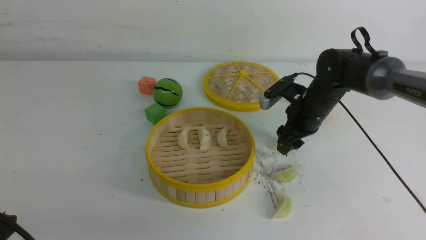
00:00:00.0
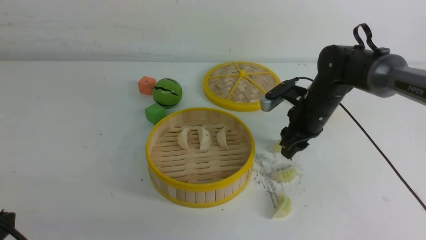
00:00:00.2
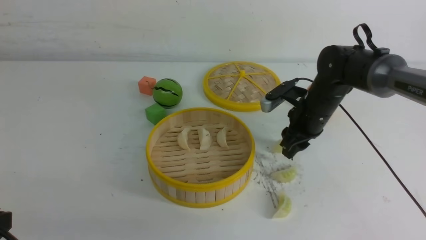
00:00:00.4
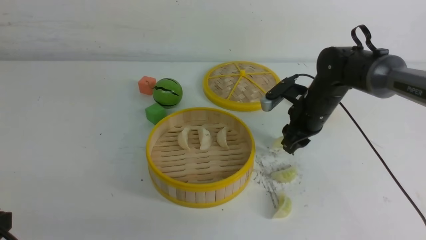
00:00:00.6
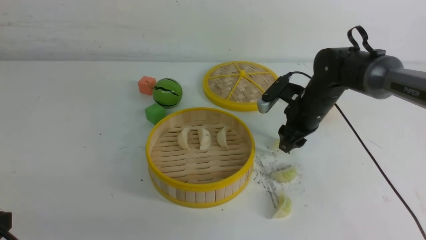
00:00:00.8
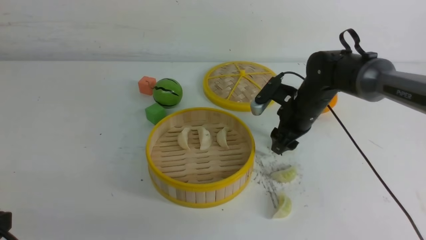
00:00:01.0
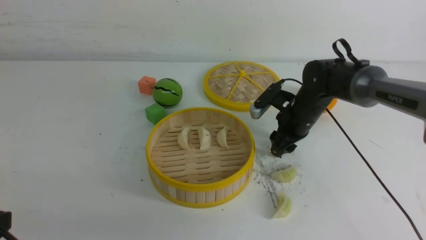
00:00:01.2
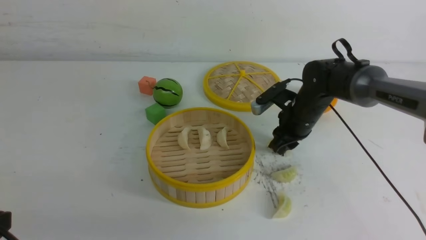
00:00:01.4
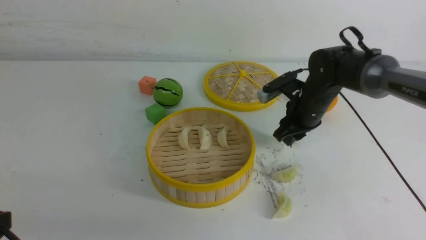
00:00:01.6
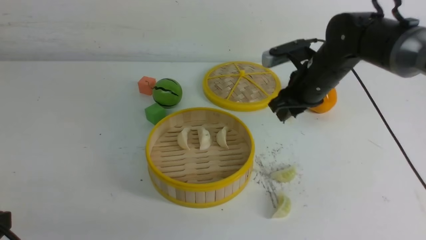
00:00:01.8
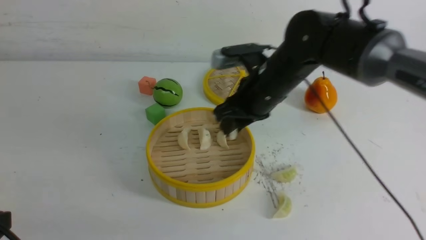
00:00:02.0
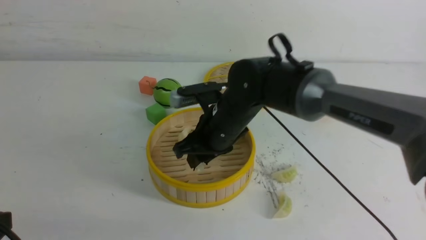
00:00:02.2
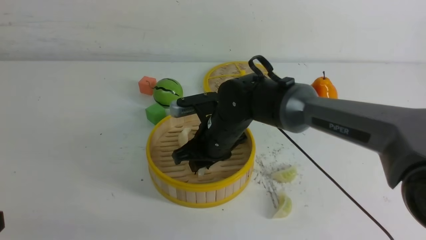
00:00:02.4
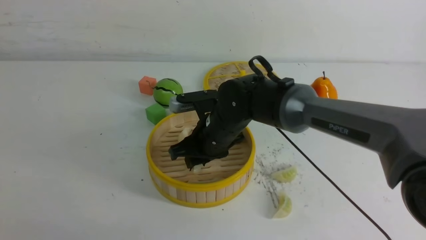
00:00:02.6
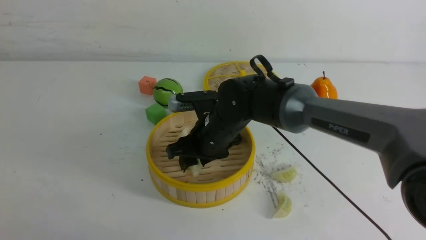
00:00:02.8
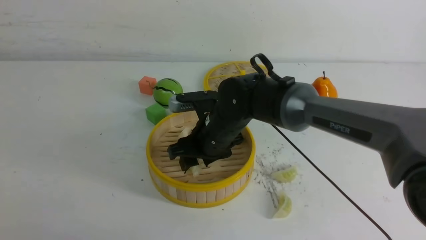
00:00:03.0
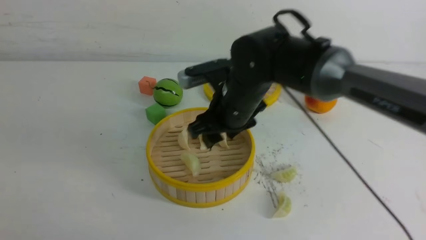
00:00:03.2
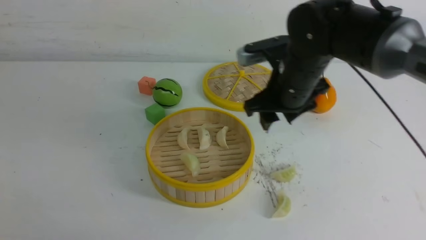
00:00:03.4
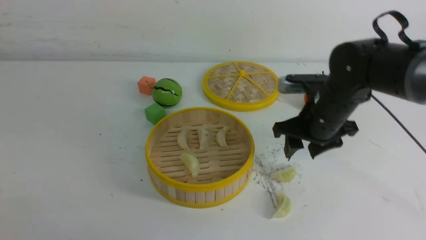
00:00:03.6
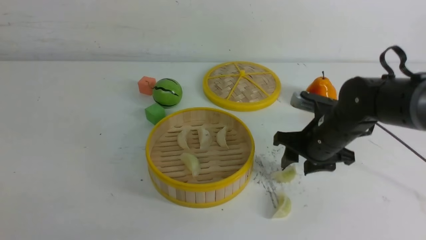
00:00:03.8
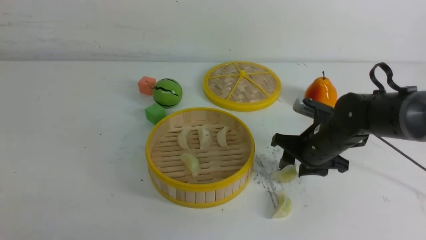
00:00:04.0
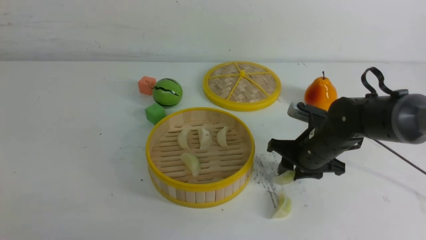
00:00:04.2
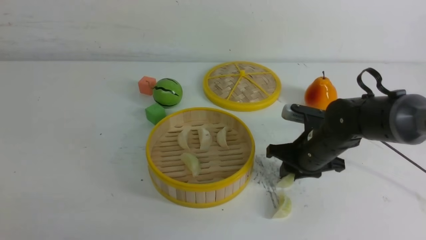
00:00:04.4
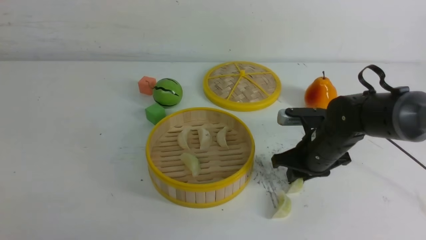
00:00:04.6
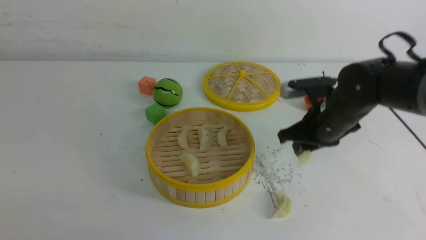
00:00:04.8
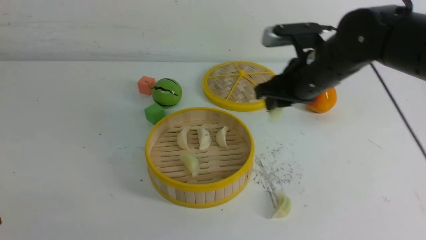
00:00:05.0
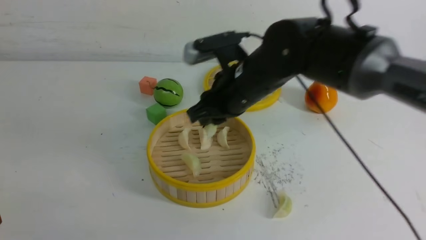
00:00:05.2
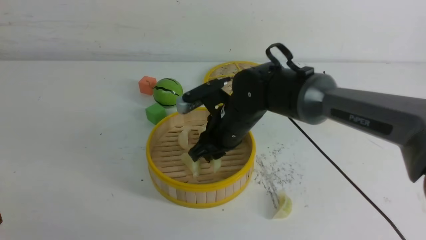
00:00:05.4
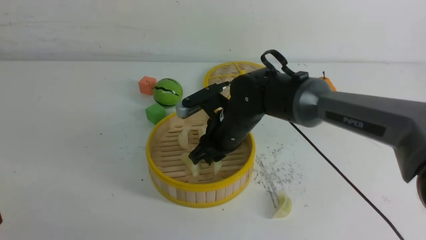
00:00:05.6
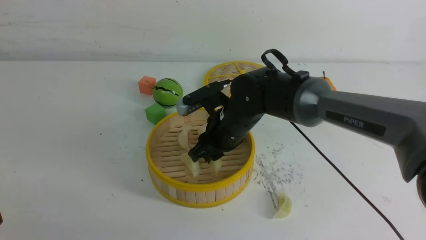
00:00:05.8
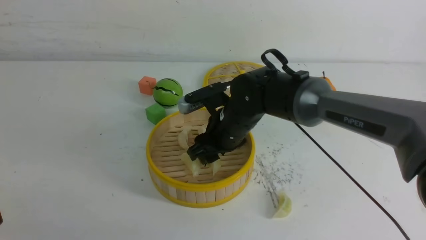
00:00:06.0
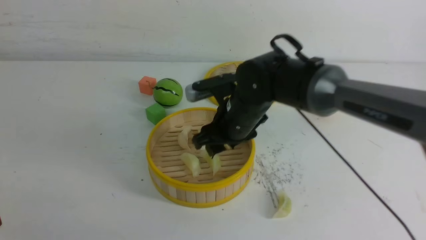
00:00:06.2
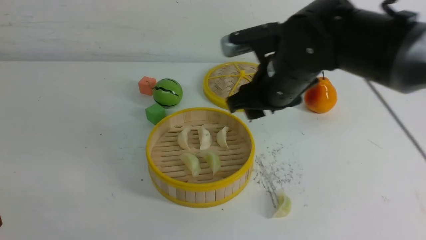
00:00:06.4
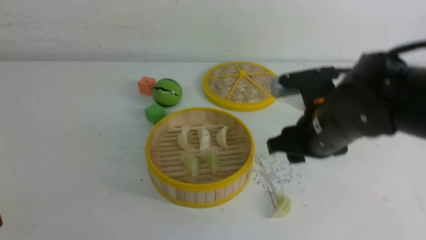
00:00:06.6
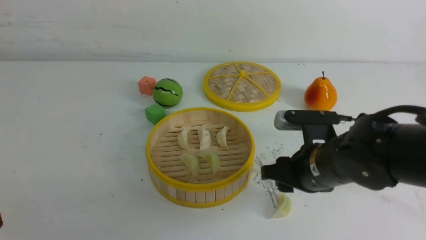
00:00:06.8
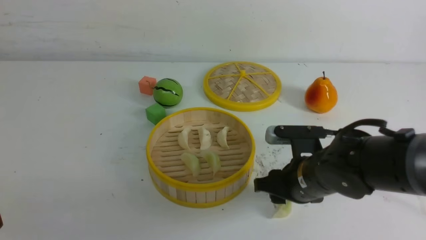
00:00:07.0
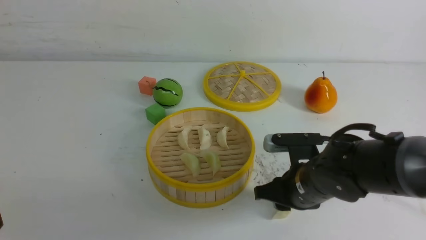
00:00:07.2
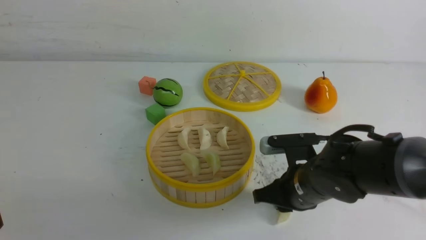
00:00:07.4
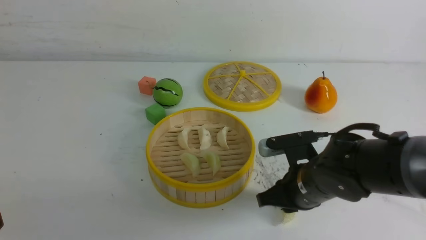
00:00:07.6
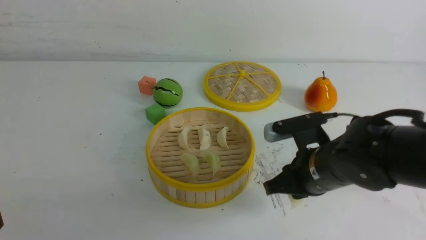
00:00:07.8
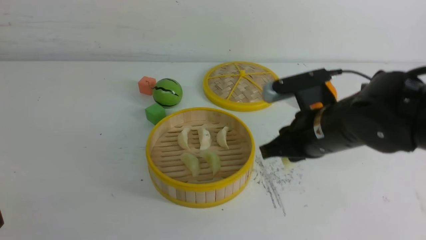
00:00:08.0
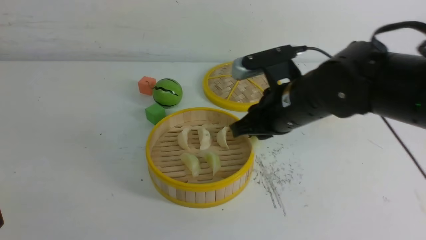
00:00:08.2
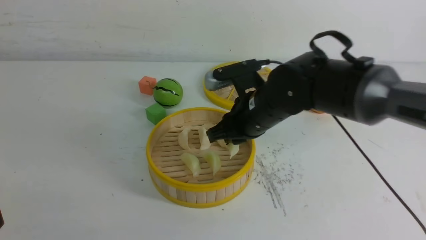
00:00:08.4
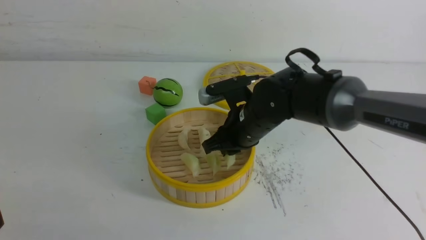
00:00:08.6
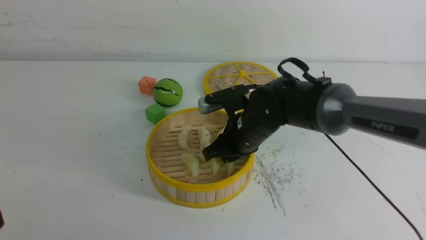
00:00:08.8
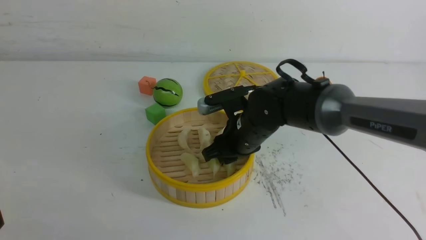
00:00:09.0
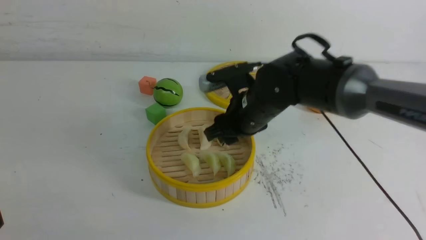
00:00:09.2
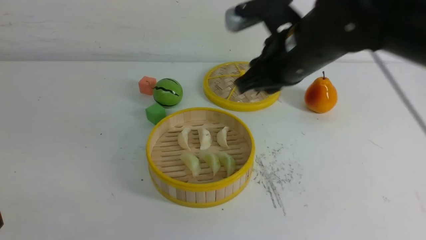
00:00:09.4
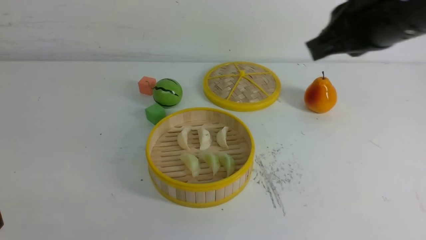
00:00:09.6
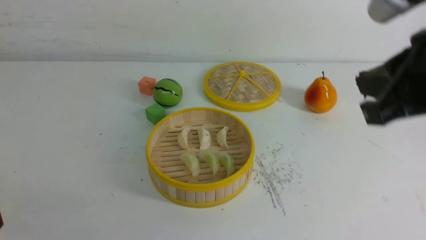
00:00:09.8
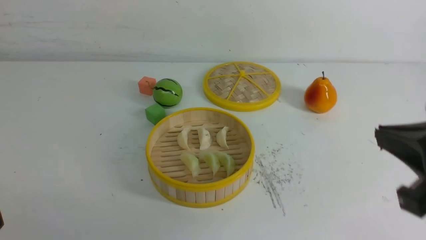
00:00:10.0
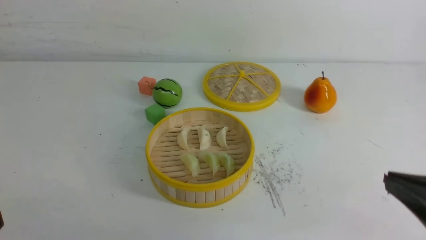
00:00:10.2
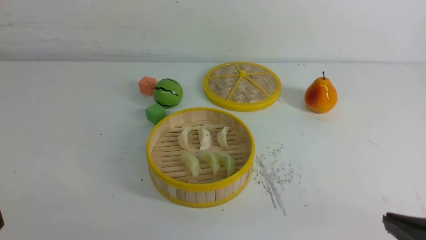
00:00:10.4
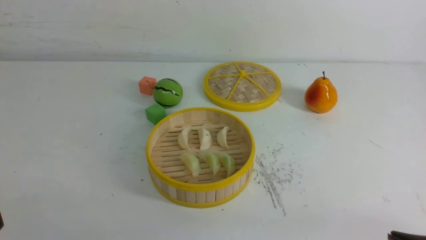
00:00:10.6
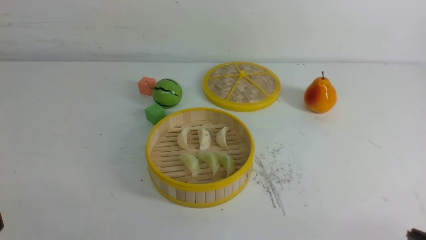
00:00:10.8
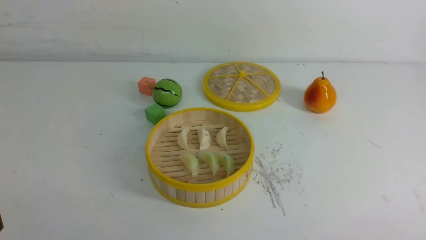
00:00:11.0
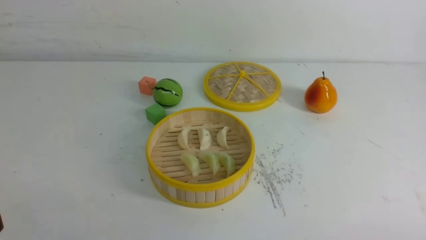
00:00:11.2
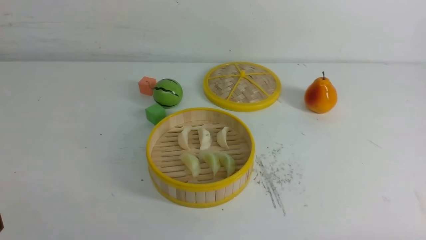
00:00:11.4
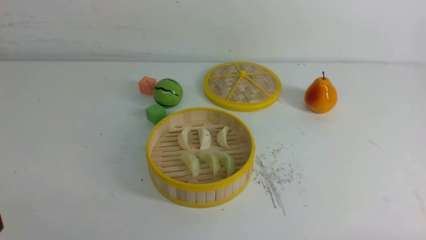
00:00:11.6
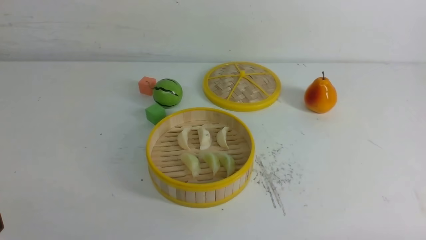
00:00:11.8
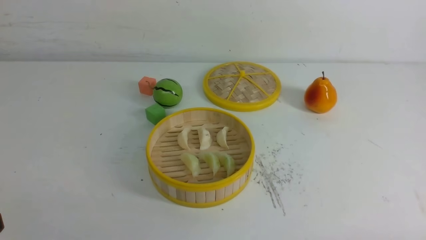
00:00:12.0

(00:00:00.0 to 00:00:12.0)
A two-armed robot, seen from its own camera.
Task of the whole recording: put the dumplings into the steamer on the white table.
Step, 00:00:01.8 - 00:00:03.0: use the right arm to put the dumpling into the steamer.
Step, 00:00:03.2 - 00:00:04.6: use the right arm to grab a dumpling.
Step, 00:00:04.8 - 00:00:06.0: use the right arm to put the dumpling into the steamer.
Step, 00:00:06.4 - 00:00:07.6: use the right arm to grab a dumpling.
Step, 00:00:07.8 - 00:00:08.8: use the right arm to put the dumpling into the steamer.
00:00:00.0 - 00:00:01.6: The right gripper closes its fingers.
00:00:01.6 - 00:00:03.0: The right gripper heads to the left and backward, covering some 15 cm, and opens its fingers.
00:00:03.0 - 00:00:04.4: The right gripper is displaced to the right by about 15 cm, and closes its fingers.
00:00:04.4 - 00:00:06.0: The right gripper goes about 15 cm to the left.
00:00:06.0 - 00:00:07.6: The right gripper is displaced to the right and backward by about 15 cm, reaches some 5 cm upward, then returns, and closes its fingers.
00:00:07.6 - 00:00:09.0: The right gripper goes about 10 cm forward and to the left.
00:00:09.0 - 00:00:10.4: The right gripper goes roughly 35 cm backward and to the right, and closes.
00:00:10.4 - 00:00:12.0: The right gripper travels downward by approximately 10 cm.

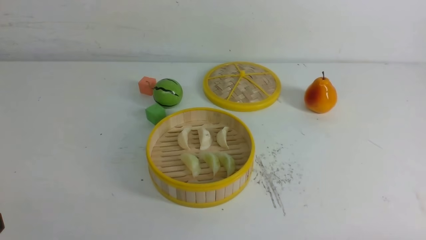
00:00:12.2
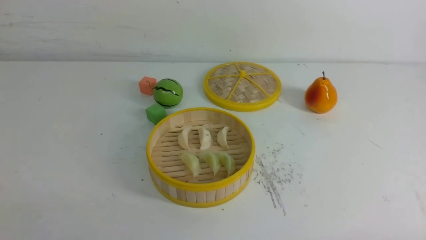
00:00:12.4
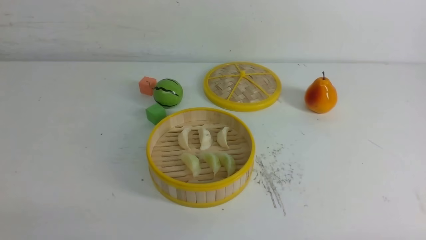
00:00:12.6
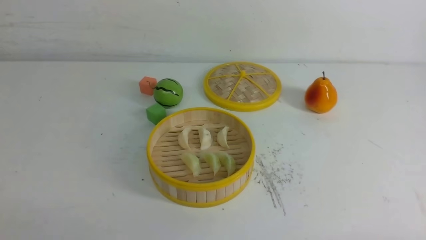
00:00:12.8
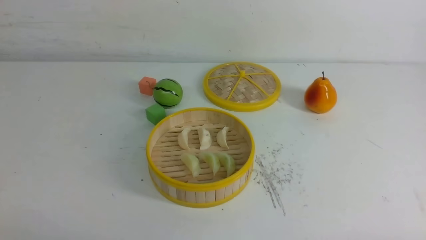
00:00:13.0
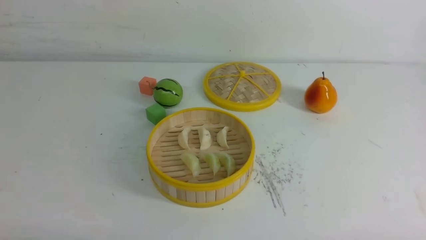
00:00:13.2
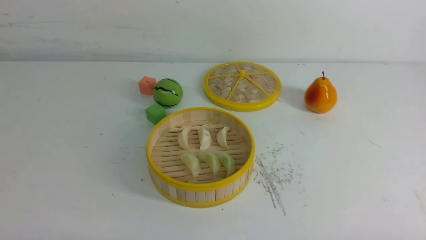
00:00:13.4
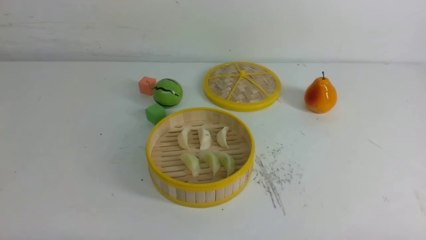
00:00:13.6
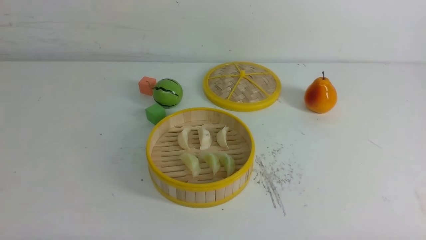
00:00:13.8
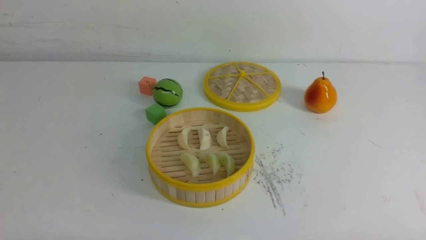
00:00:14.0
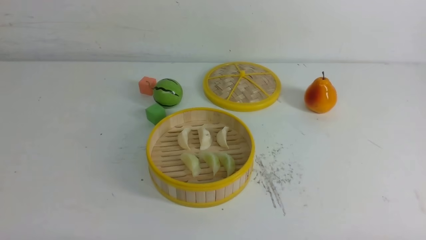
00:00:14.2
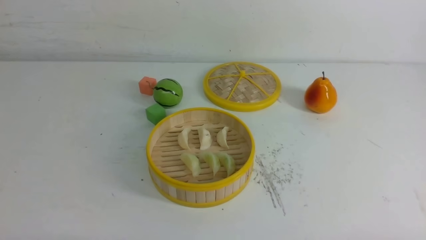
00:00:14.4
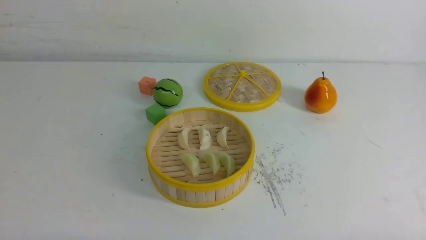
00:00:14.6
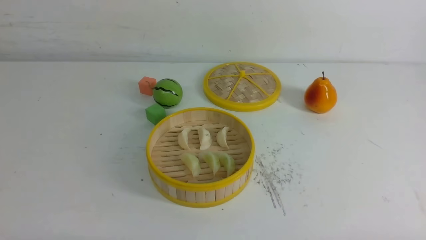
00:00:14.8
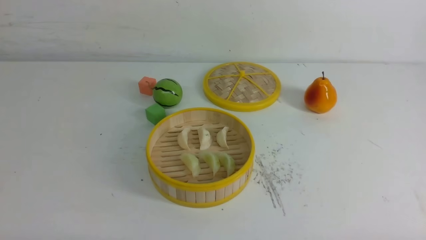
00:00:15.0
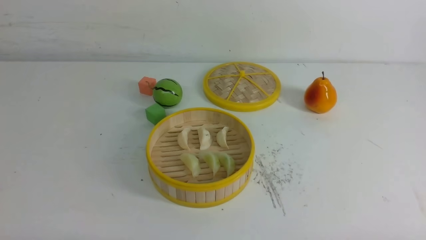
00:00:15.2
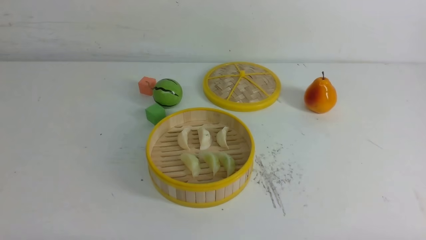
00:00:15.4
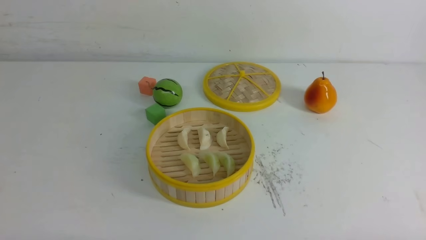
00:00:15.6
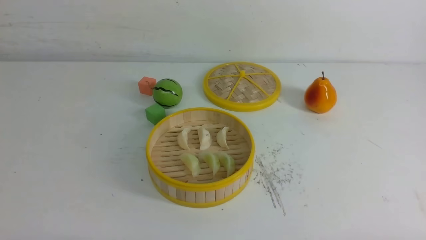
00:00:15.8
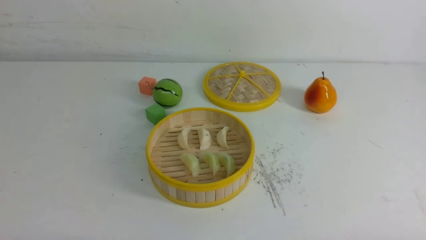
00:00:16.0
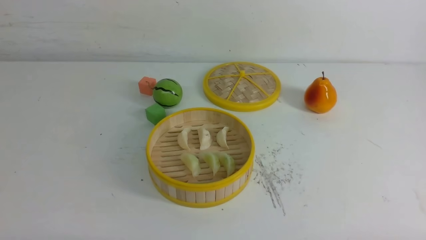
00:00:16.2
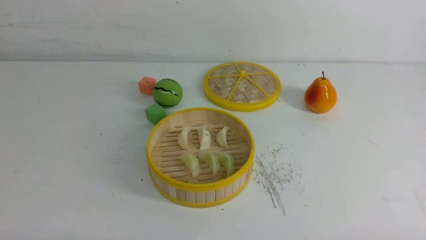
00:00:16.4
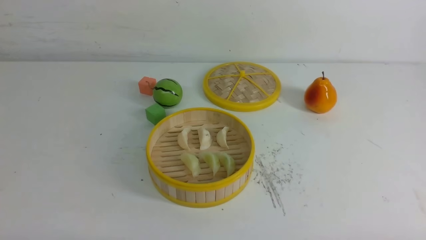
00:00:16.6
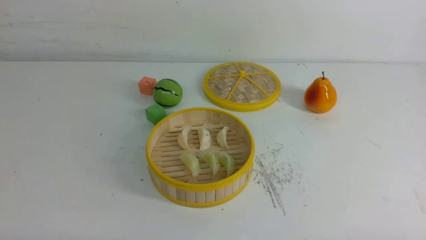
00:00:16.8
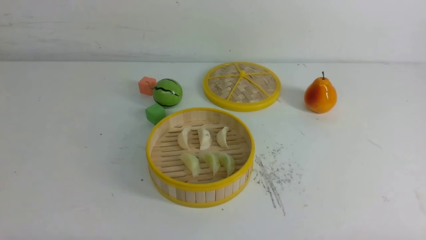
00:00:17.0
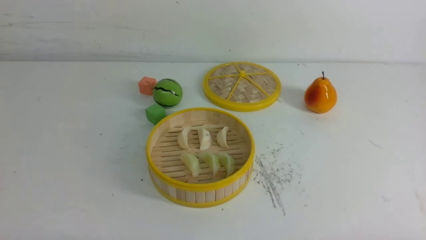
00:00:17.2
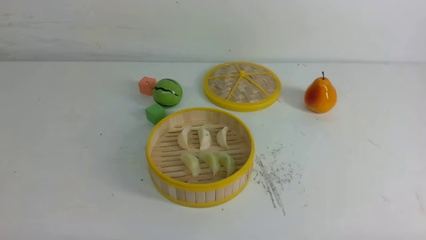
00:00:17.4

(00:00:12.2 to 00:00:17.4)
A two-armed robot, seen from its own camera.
Task of the whole recording: put the dumplings into the steamer on the white table.
00:00:14.0 - 00:00:17.4: Both grippers stay about where they are.
